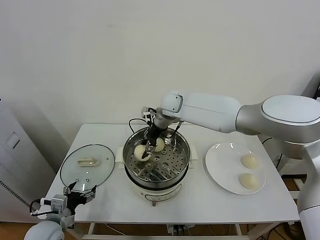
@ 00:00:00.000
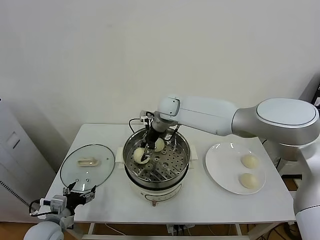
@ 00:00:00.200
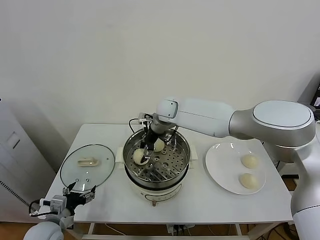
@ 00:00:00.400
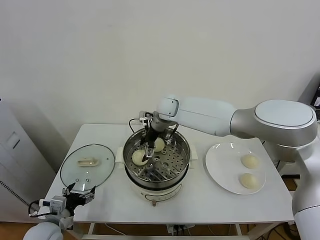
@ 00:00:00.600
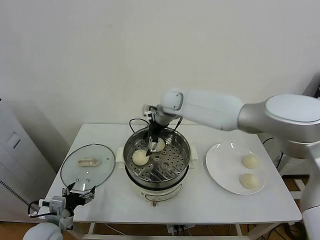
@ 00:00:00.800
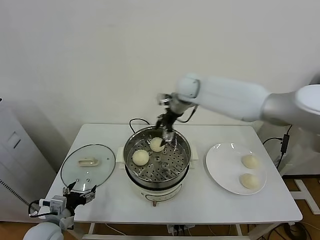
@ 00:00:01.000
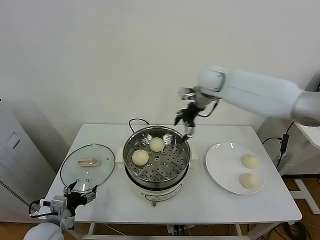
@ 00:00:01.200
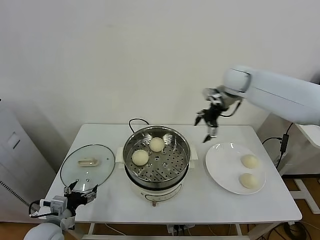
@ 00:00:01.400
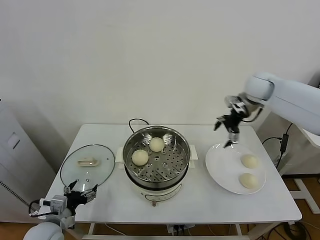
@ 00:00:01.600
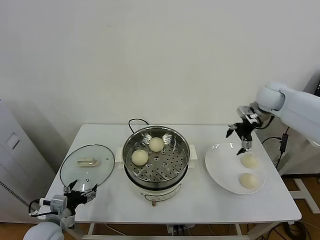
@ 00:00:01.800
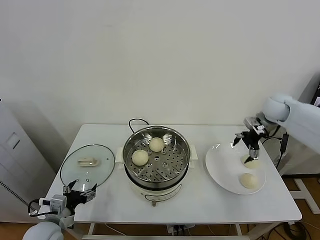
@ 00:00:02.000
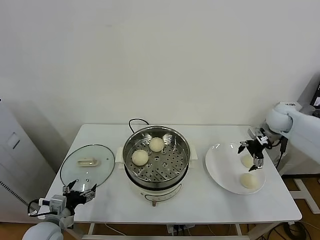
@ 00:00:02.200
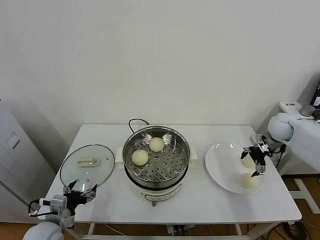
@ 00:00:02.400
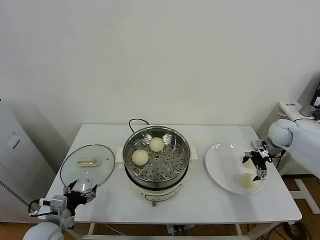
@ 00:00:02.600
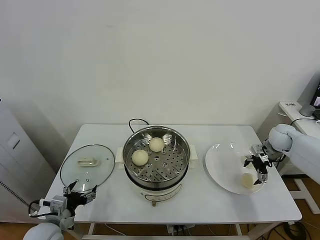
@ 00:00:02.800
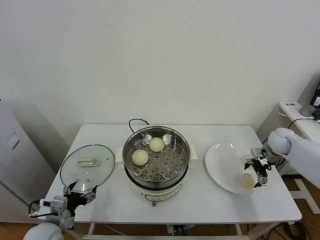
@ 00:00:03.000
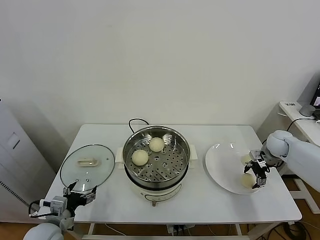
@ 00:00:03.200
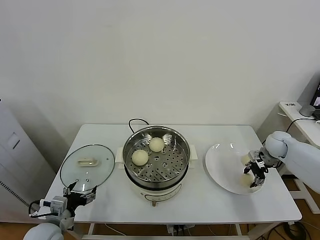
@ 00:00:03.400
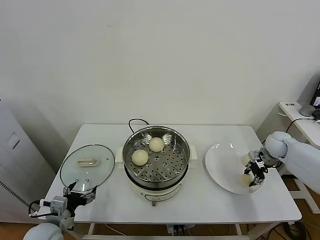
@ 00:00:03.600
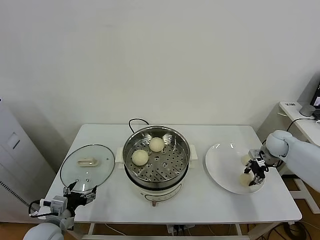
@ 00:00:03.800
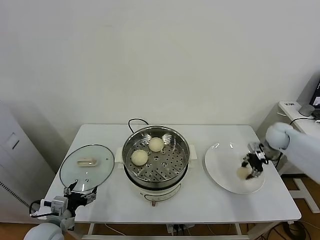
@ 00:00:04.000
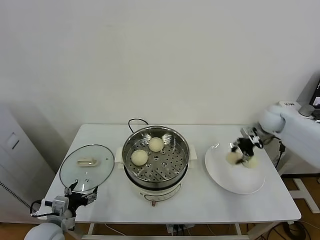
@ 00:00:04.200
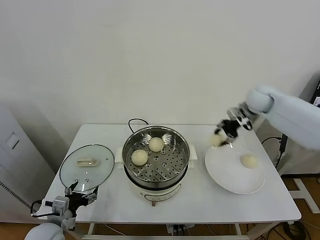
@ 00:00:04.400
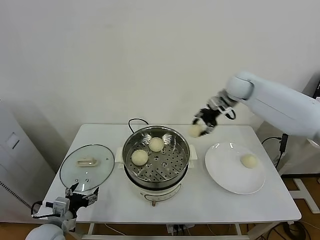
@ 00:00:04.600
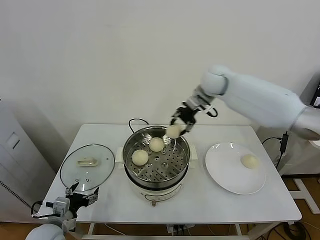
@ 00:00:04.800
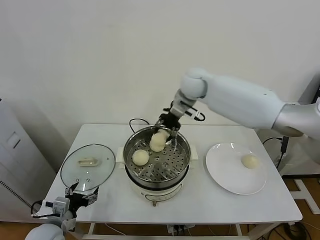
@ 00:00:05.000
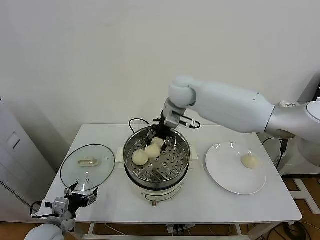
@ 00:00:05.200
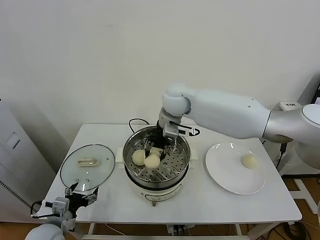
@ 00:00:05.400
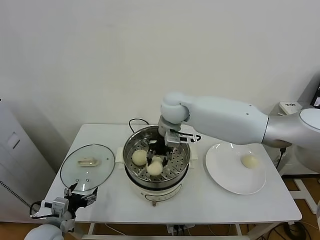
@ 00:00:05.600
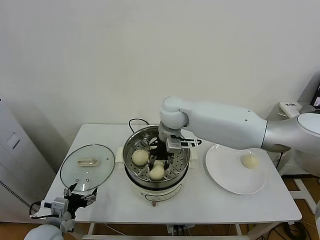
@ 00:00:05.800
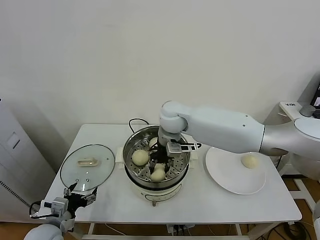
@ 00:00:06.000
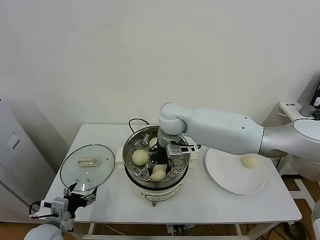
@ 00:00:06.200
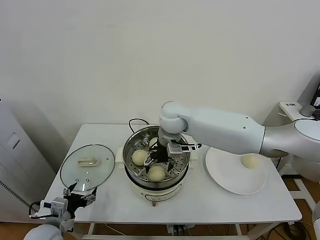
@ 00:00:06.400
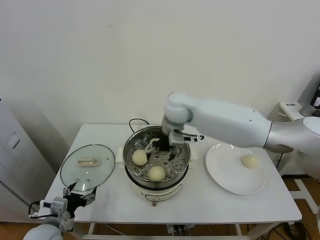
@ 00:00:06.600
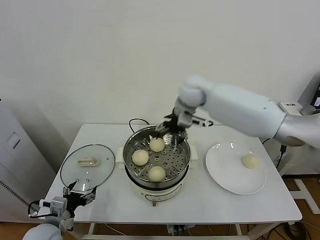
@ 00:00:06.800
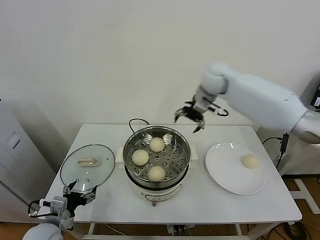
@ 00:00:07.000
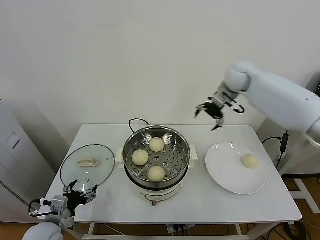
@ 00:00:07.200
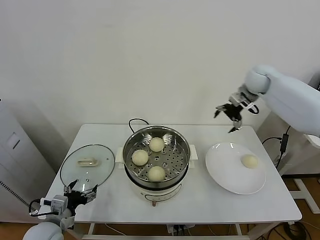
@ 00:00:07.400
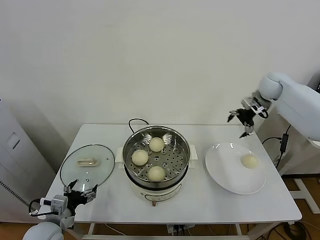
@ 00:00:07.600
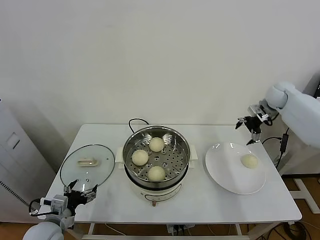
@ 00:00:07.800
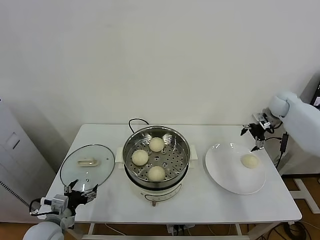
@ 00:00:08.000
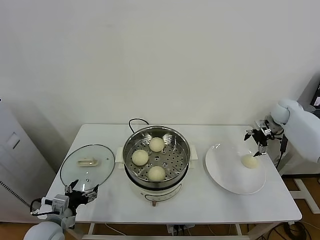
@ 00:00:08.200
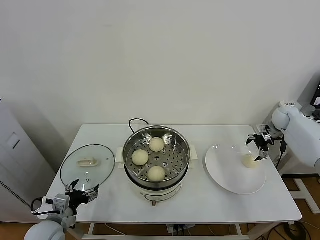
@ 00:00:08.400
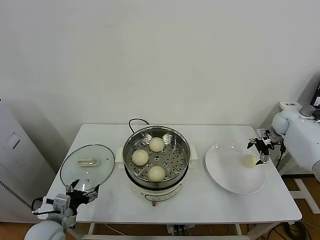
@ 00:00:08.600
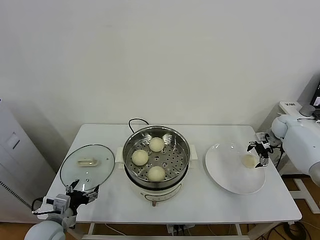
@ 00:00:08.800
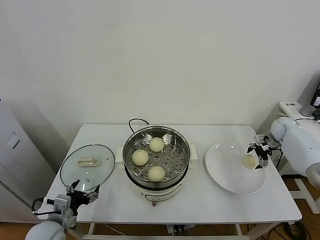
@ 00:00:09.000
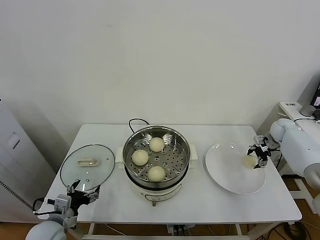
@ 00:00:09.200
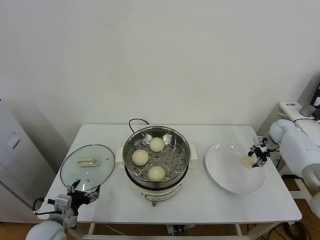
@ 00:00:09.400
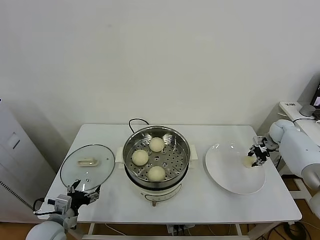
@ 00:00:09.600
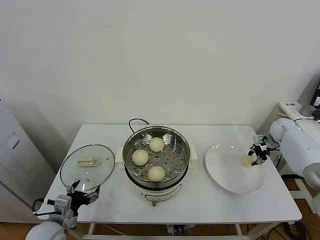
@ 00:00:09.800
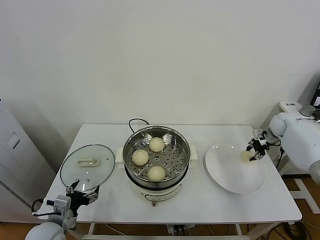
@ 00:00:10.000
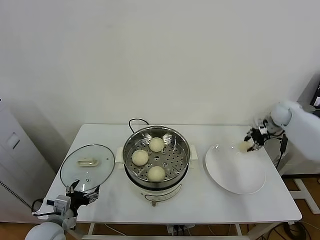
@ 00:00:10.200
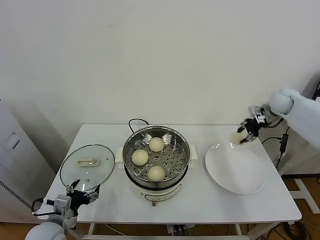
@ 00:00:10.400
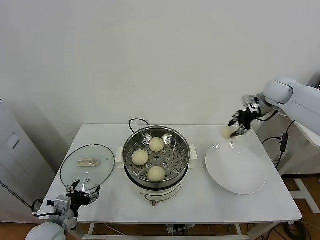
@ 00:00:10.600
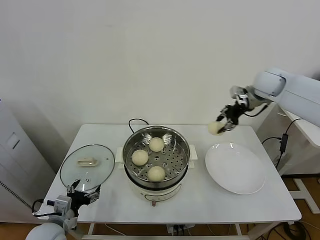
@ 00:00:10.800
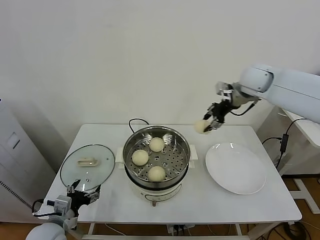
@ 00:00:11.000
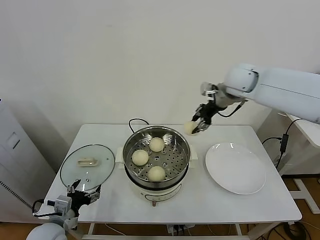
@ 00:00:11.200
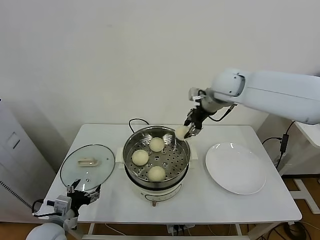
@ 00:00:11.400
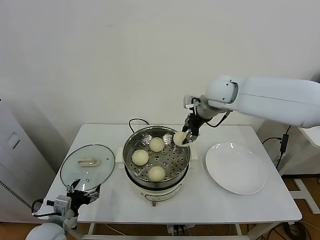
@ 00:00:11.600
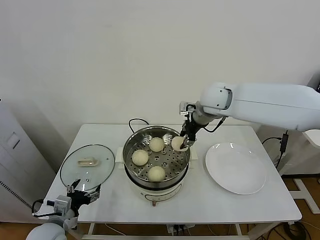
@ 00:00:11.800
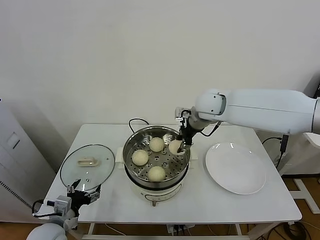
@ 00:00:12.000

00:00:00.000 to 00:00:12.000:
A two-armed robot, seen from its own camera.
Task of the whole recording: take steamed baozi put them in steamer.
Step, 00:00:01.000 to 00:00:03.400: Grasp the baozi in the plate with right gripper.
Step, 00:00:03.600 to 00:00:06.200: Place the baozi on the steamer with right gripper.
Step, 00:00:06.400 to 00:00:09.400: Grasp the baozi in the plate with right gripper.
00:00:00.000 to 00:00:01.600: The right gripper goes about 30 cm to the right, and opens.
00:00:01.600 to 00:00:03.000: The right gripper shifts about 25 cm downward and to the right.
00:00:03.000 to 00:00:04.400: The right gripper moves upward and to the left, roughly 20 cm, and closes its fingers.
00:00:04.400 to 00:00:06.000: The right gripper is displaced to the left by about 30 cm.
00:00:06.000 to 00:00:07.600: The right gripper travels to the right by about 35 cm, and opens its fingers.
00:00:07.600 to 00:00:09.000: The right gripper goes some 20 cm downward and to the right.
00:00:09.000 to 00:00:10.400: The right gripper shifts some 15 cm upward and to the left, and closes.
00:00:10.400 to 00:00:12.000: The right gripper moves to the left, about 30 cm.

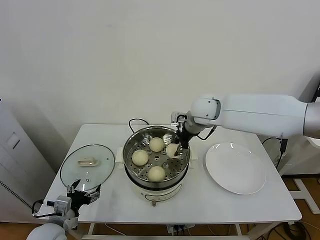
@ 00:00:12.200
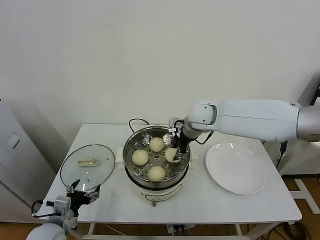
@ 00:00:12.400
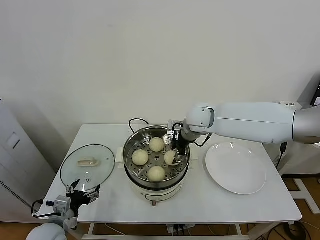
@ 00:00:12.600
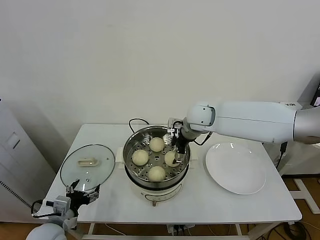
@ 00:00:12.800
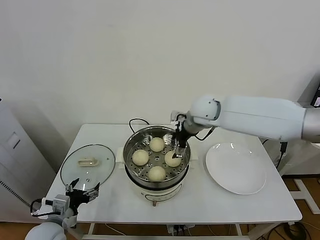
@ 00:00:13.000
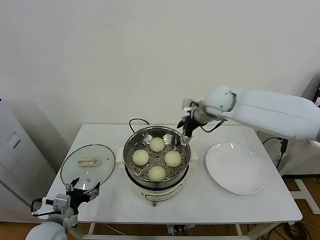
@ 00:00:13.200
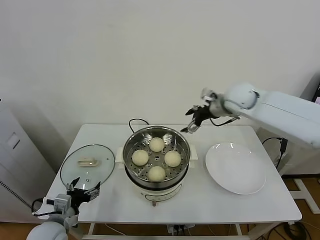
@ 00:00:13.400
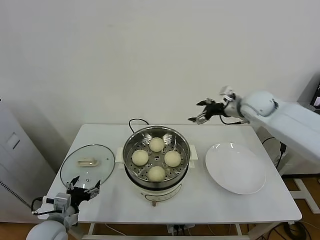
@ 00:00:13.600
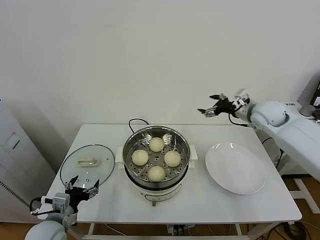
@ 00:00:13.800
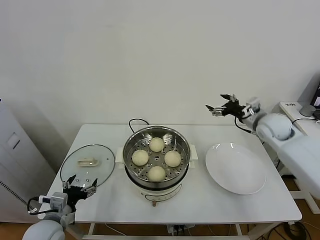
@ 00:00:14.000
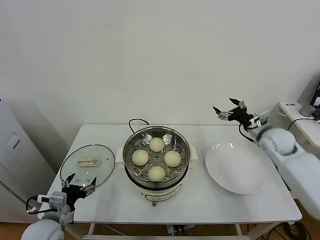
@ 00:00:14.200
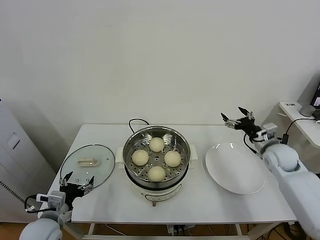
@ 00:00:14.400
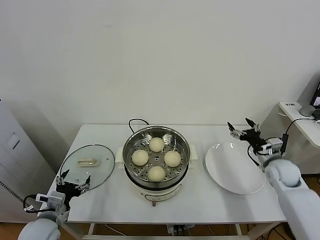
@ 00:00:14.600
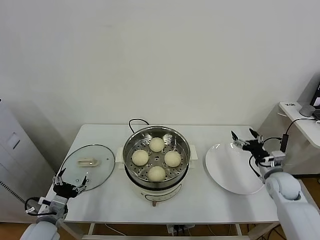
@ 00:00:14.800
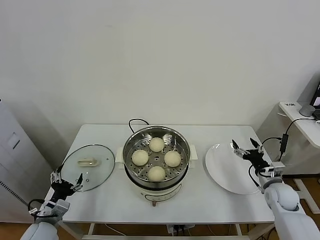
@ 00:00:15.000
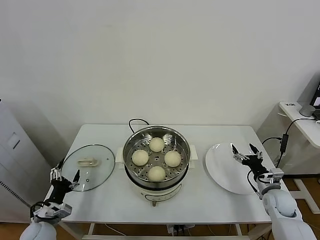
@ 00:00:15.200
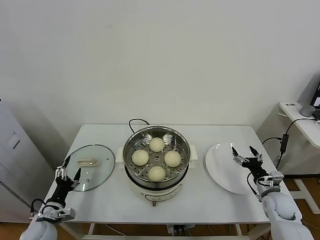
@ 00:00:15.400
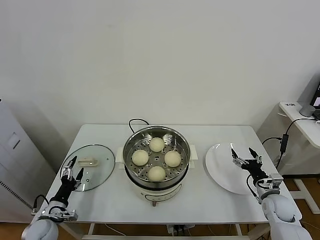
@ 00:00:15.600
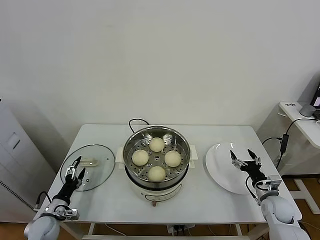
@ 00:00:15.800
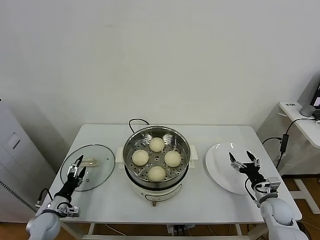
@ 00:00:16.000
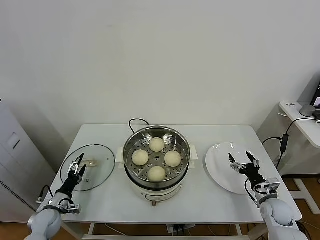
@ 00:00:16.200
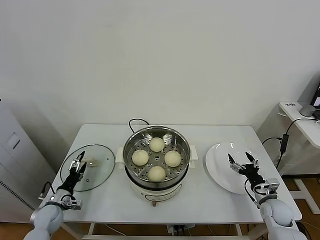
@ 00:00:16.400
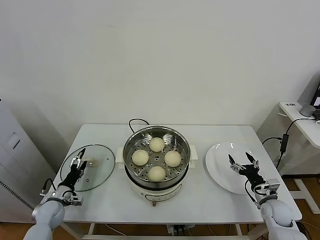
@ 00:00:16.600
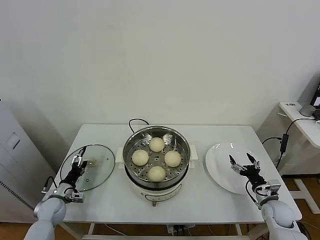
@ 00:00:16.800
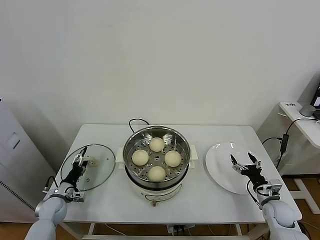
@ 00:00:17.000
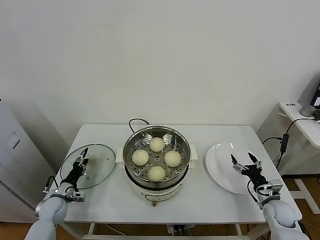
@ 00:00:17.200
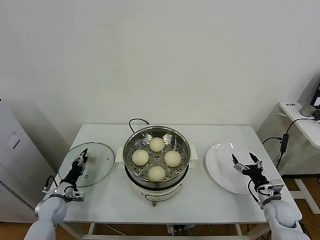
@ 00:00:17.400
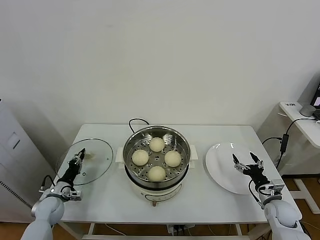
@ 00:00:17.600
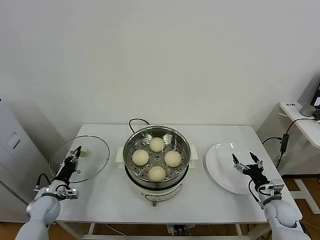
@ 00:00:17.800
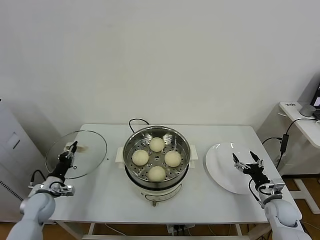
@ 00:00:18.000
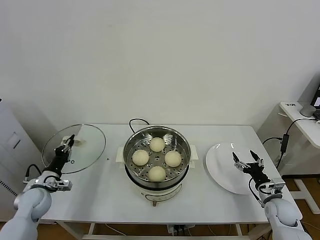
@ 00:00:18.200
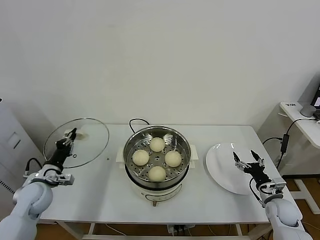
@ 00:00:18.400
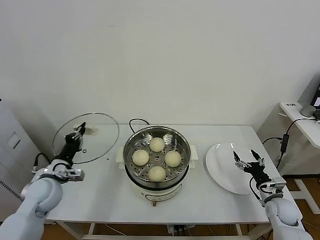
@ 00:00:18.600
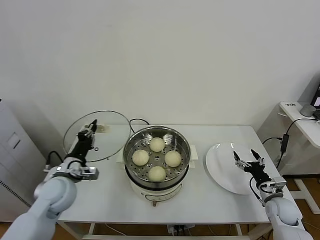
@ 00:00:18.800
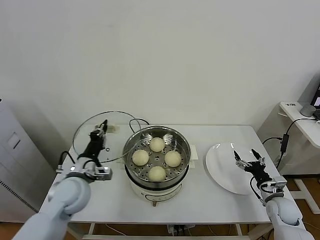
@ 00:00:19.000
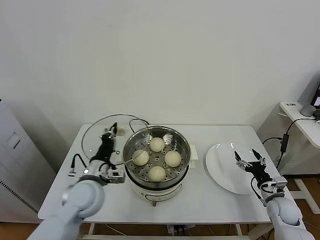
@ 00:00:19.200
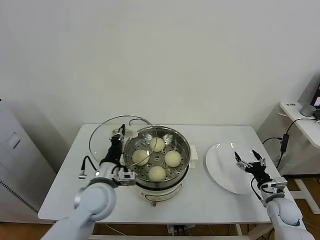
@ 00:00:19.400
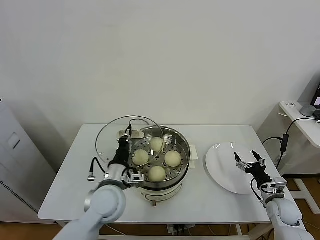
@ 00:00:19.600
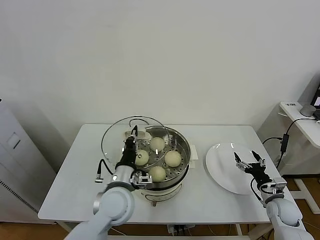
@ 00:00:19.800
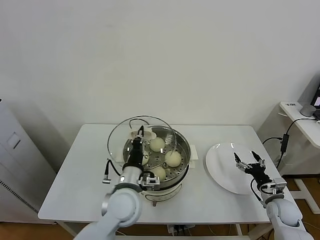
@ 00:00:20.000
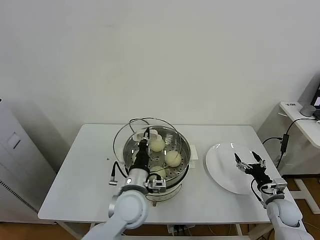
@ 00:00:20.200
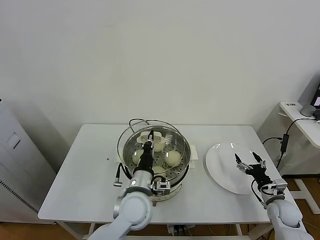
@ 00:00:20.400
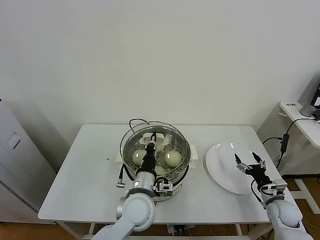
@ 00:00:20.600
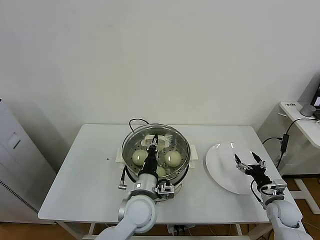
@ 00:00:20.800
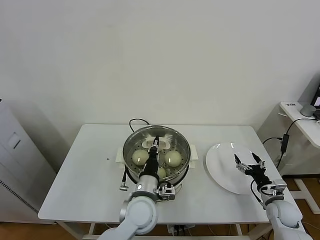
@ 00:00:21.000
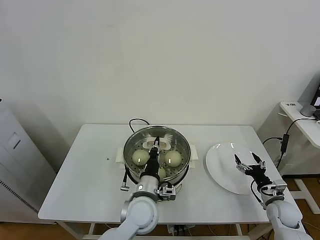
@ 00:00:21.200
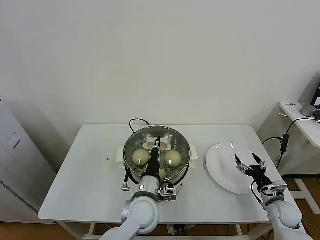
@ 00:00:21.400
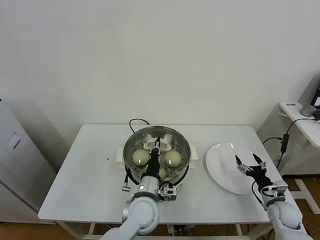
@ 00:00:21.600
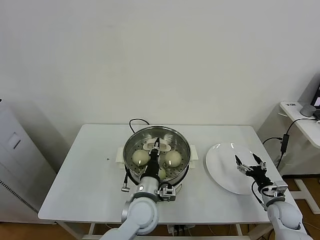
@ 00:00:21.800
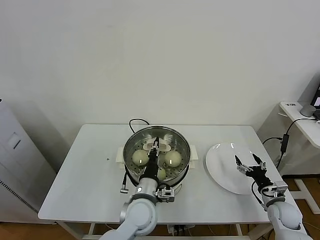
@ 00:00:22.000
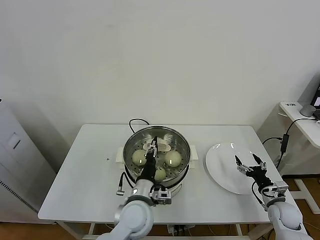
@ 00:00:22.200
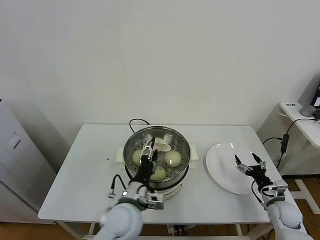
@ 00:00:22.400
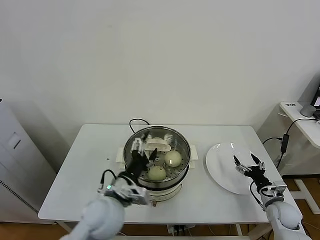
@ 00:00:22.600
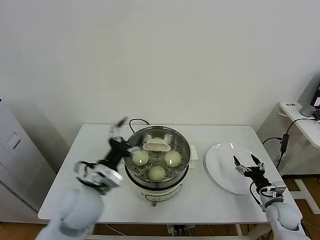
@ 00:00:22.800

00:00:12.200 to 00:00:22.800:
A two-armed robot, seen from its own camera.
Task of the whole recording: take steamed baozi put them in steamer.
Step, 00:00:13.000 to 00:00:17.800: Grasp the pot lid with left gripper.
Step, 00:00:18.000 to 00:00:22.200: Place the pot lid on the steamer with left gripper.
00:00:12.200 to 00:00:13.800: The right gripper moves to the right, some 20 cm, and opens its fingers.
00:00:13.800 to 00:00:15.200: The left gripper shifts approximately 10 cm downward and to the left, while the right gripper is displaced downward and backward by about 30 cm.
00:00:15.200 to 00:00:16.800: The left gripper moves forward and downward, some 10 cm.
00:00:16.800 to 00:00:18.200: The left gripper travels upward by approximately 10 cm, and closes its fingers.
00:00:18.200 to 00:00:19.800: The left gripper goes about 30 cm to the right.
00:00:19.800 to 00:00:21.200: The left gripper heads to the right, covering roughly 5 cm.
00:00:21.200 to 00:00:22.800: The left gripper goes about 15 cm to the left and upward, and opens up.
